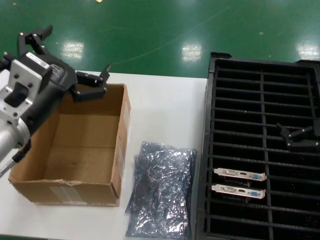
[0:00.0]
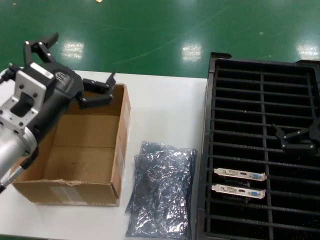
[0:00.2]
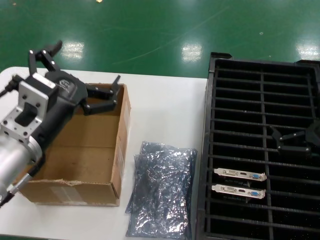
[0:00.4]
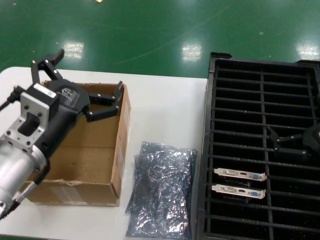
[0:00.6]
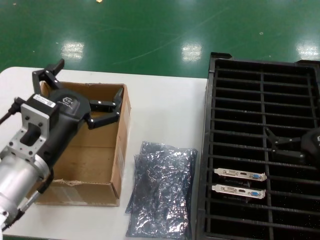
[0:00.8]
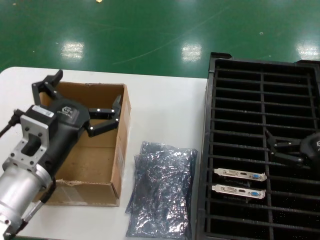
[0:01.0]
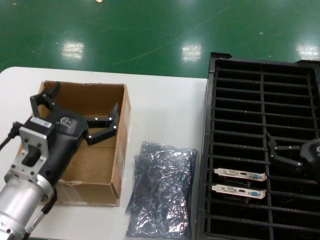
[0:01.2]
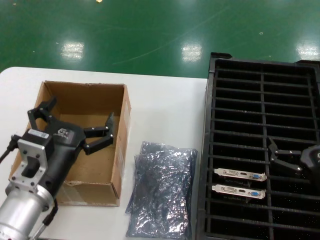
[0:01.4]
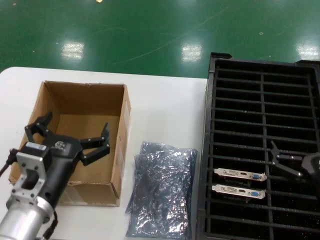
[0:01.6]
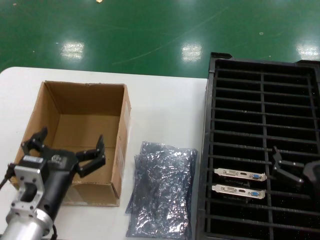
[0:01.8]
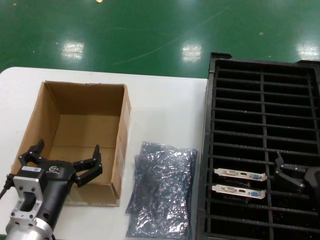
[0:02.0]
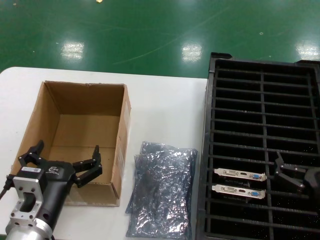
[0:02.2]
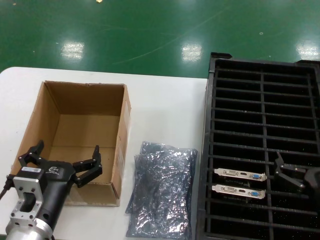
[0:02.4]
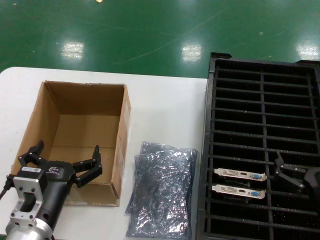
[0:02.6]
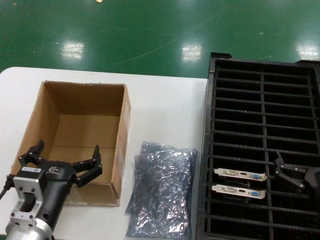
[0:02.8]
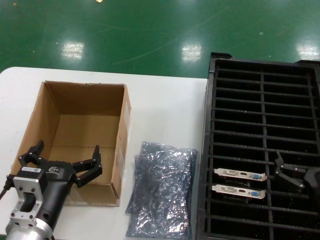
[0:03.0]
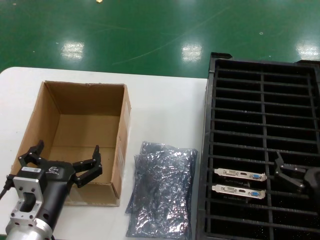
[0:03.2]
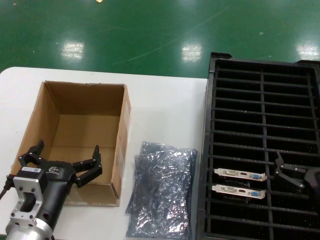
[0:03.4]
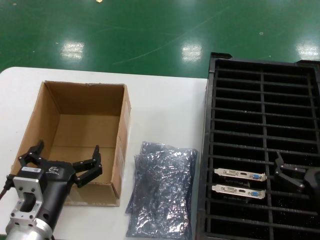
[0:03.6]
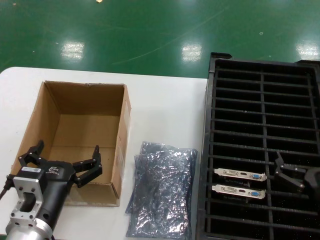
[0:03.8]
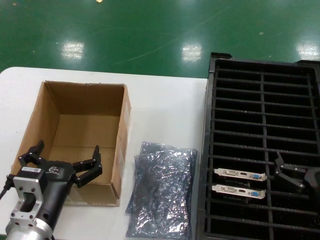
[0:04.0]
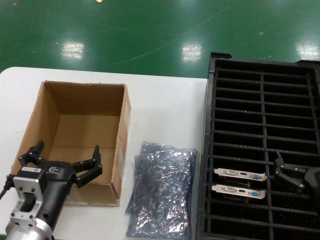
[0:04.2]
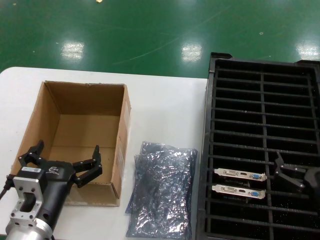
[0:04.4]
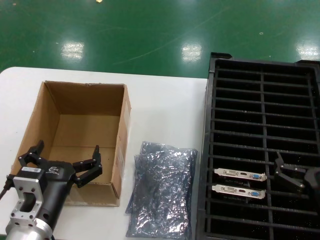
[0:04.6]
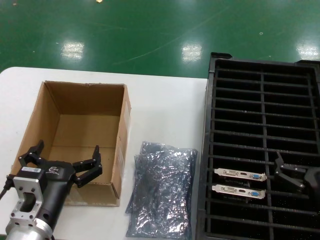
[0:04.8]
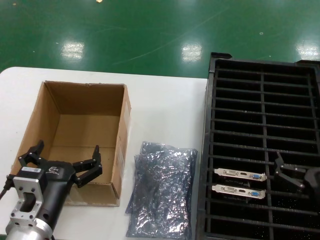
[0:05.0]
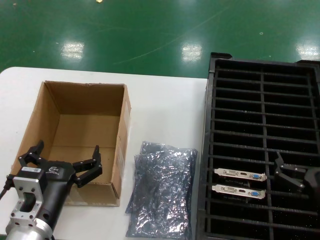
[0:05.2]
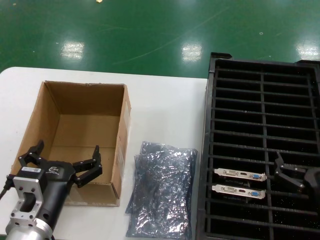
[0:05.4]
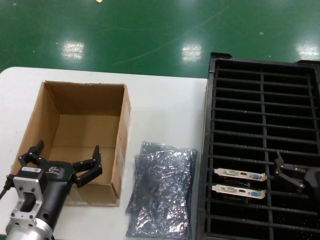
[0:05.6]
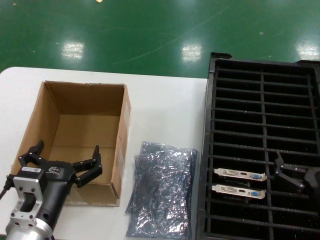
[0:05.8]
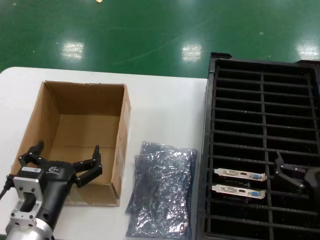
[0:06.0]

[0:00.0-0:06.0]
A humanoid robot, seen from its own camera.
Task of the whole recording: take out graphics card from box remove packaging put into black container.
0.0 to 1.6 s: The right hand travels downward, to the left and backward by approximately 15 cm. The left hand moves downward, approximately 15 cm.
1.6 to 3.0 s: The hands make only small movements.
3.0 to 6.0 s: Both hands stay put.

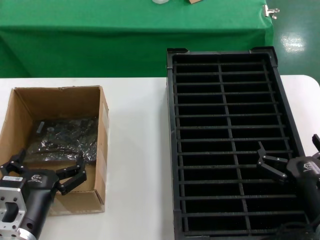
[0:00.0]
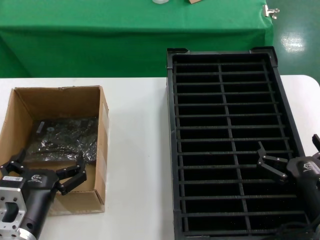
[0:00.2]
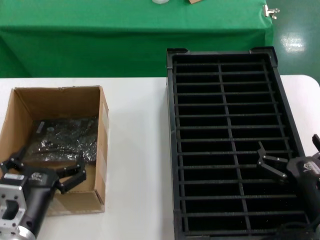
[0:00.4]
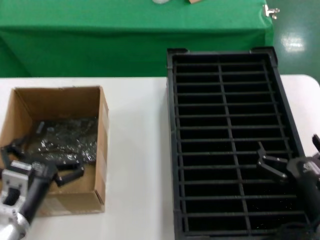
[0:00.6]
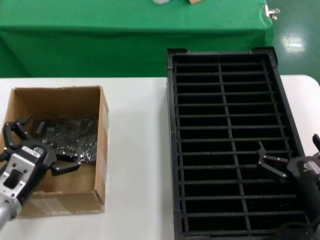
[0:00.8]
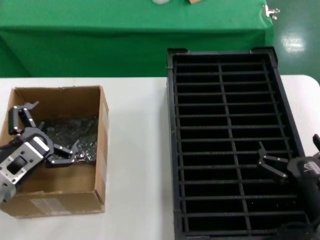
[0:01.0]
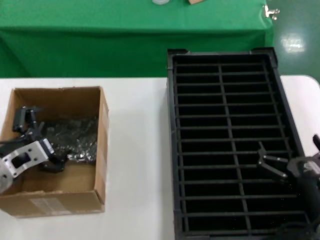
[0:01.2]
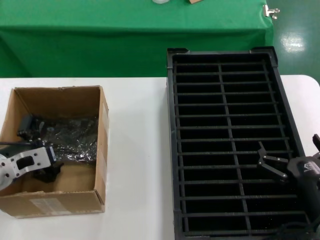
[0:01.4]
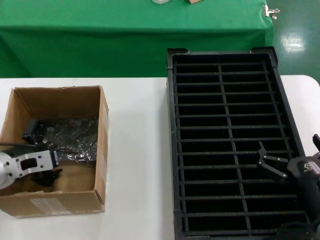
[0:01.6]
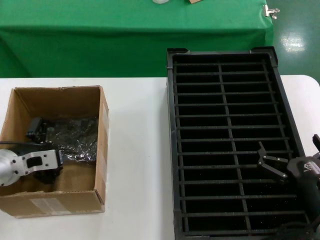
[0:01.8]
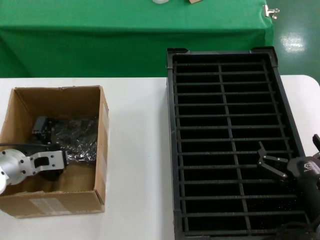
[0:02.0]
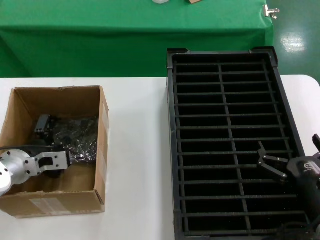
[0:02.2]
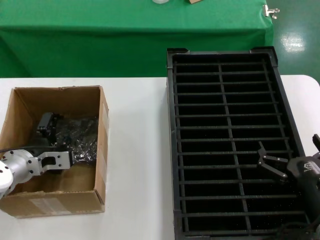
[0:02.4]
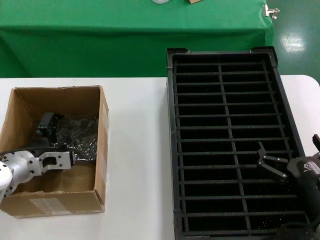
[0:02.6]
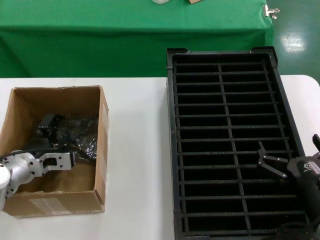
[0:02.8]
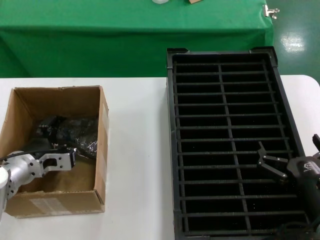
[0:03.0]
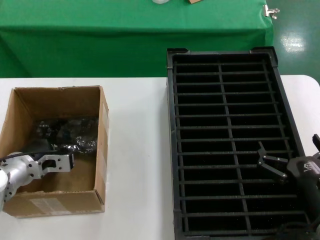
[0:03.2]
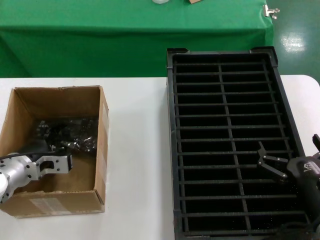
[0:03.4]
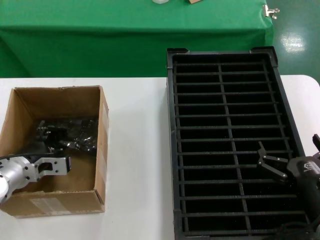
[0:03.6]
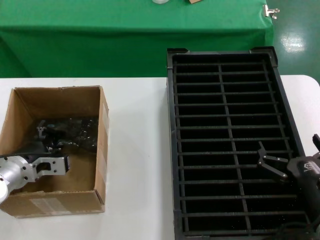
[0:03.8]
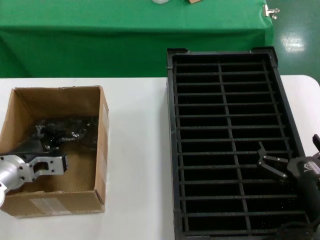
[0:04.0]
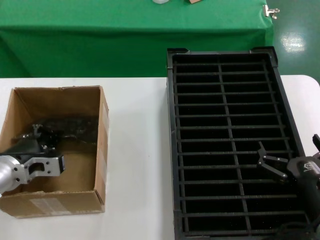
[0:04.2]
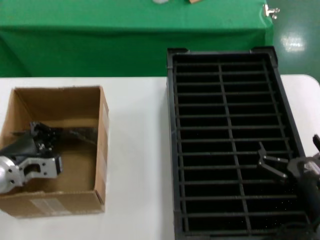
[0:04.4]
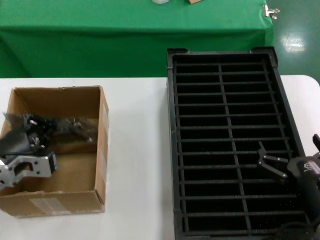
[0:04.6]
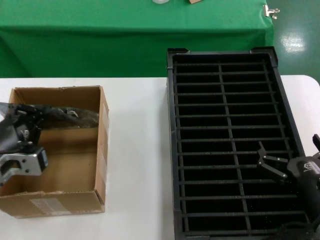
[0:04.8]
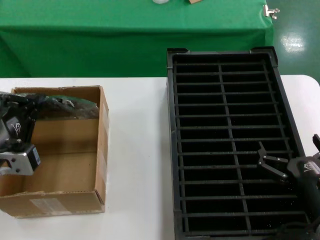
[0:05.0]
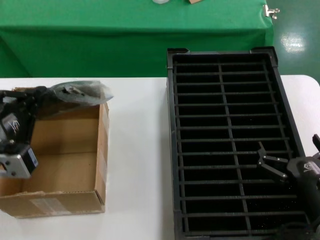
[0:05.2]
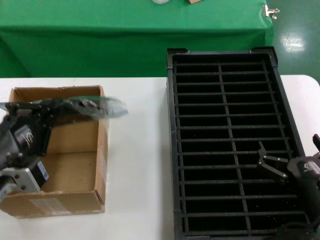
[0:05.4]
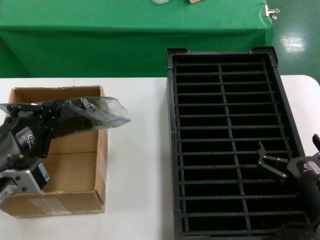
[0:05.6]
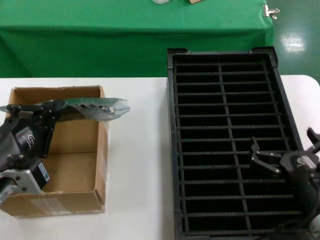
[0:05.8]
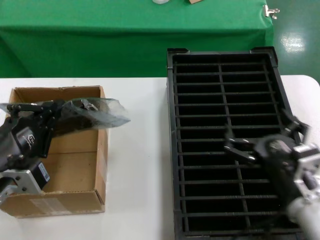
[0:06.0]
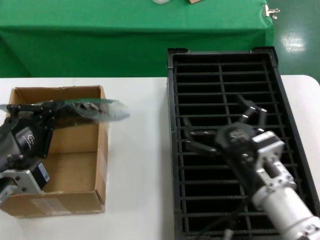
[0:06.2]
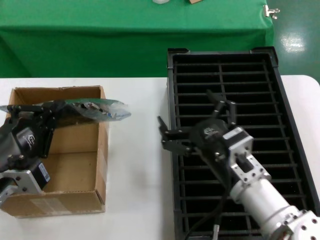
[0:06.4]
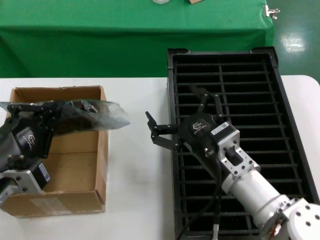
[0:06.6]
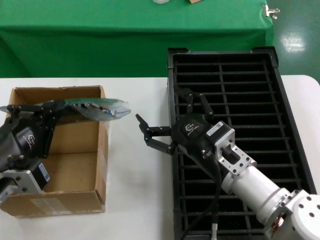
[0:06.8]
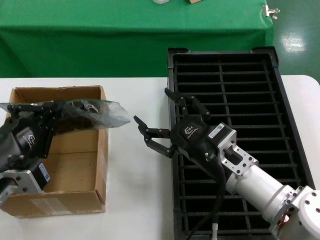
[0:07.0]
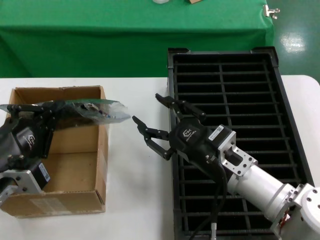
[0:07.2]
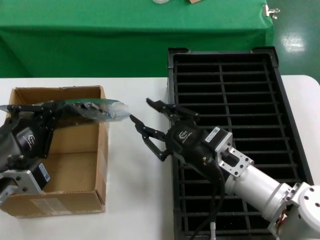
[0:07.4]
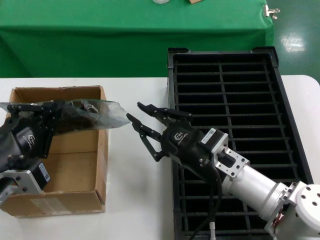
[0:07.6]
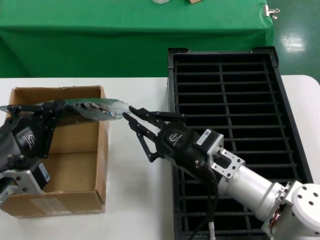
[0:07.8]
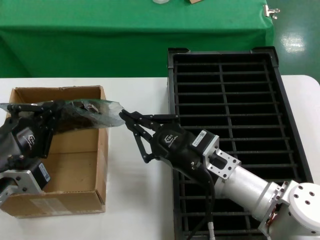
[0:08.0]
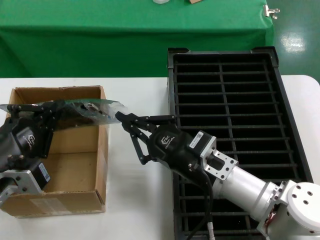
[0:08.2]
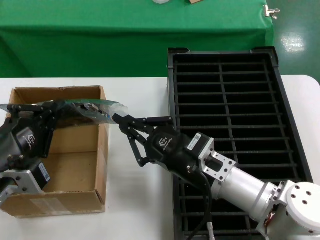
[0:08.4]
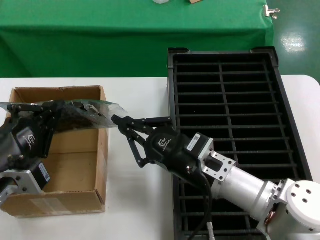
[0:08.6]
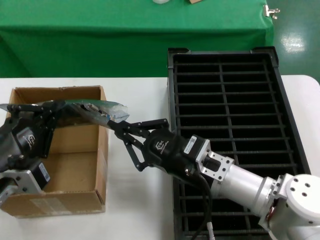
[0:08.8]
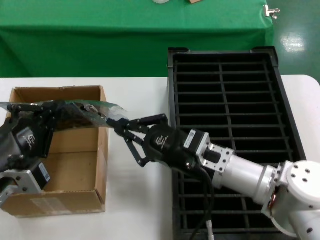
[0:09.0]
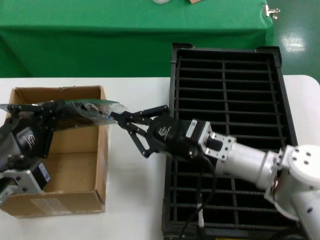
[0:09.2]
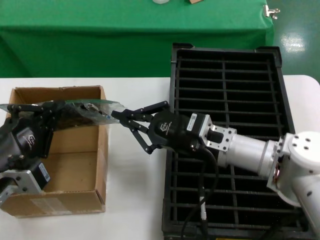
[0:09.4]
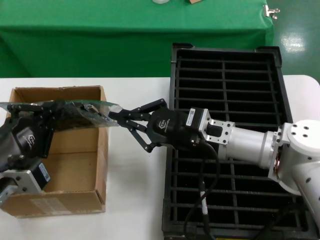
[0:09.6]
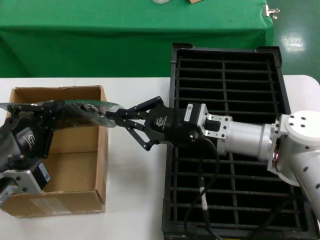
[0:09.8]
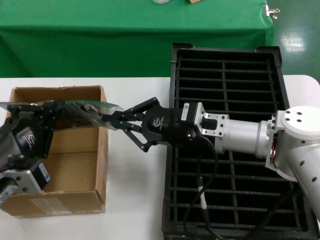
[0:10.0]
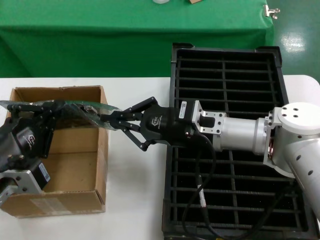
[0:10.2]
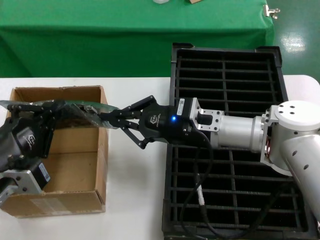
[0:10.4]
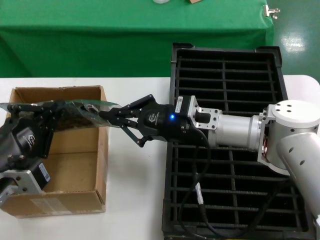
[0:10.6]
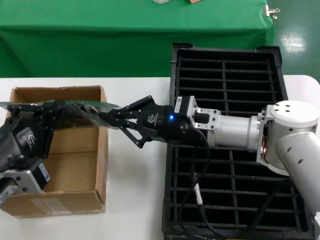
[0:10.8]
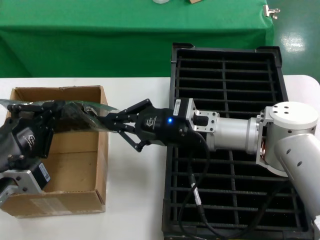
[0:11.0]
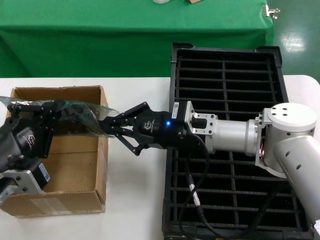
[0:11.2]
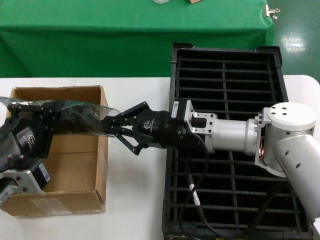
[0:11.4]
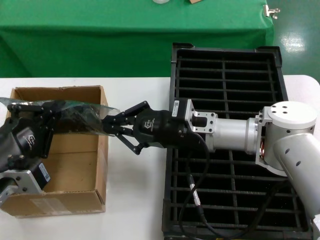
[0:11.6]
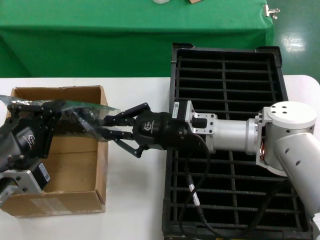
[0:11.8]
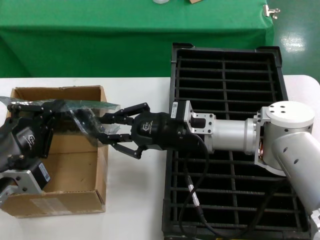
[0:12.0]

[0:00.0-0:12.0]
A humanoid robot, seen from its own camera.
Task of the whole recording: take out graphics card from box remove packaging put into black container.
Step, 0.0 to 4.2 s: Grasp the bag.
Step, 4.4 to 5.4 s: Lift the bag.
0.0 to 1.6 s: The left hand goes roughly 20 cm forward, to the left and upward.
1.6 to 3.0 s: The left hand changes place by approximately 5 cm.
3.0 to 4.4 s: The left hand shifts some 5 cm backward.
4.4 to 6.0 s: The left hand moves backward and upward, approximately 15 cm.
6.0 to 7.6 s: The right hand travels forward and to the left by approximately 10 cm.
7.6 to 9.0 s: The hands move only a little.
9.0 to 10.4 s: The right hand moves forward, approximately 10 cm.
10.4 to 12.0 s: The hands move only a little.

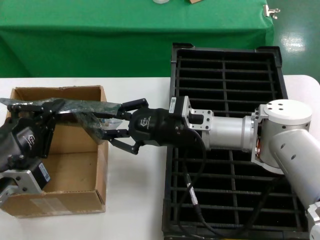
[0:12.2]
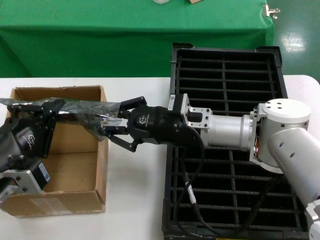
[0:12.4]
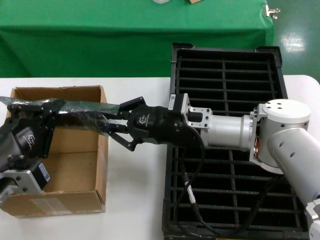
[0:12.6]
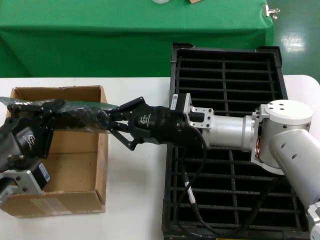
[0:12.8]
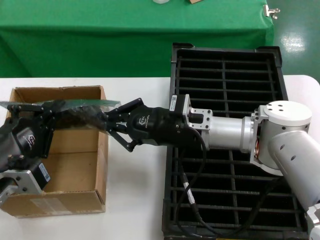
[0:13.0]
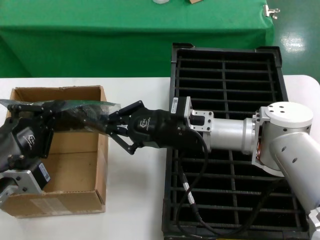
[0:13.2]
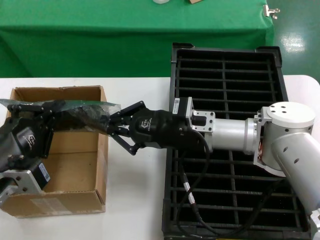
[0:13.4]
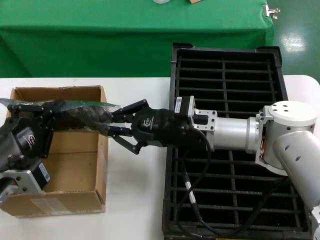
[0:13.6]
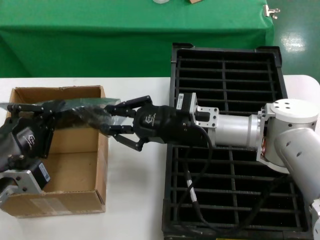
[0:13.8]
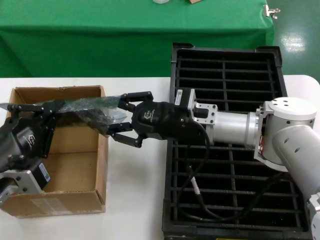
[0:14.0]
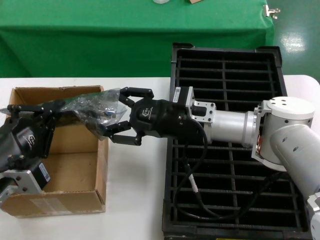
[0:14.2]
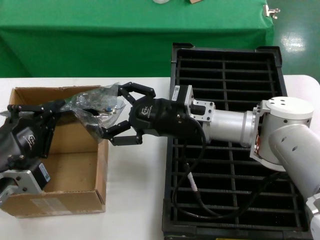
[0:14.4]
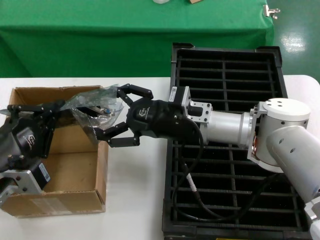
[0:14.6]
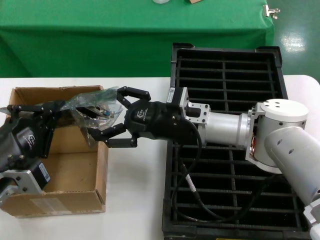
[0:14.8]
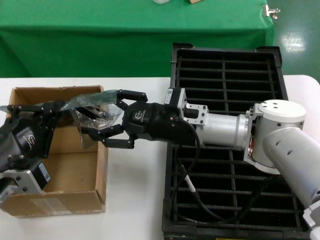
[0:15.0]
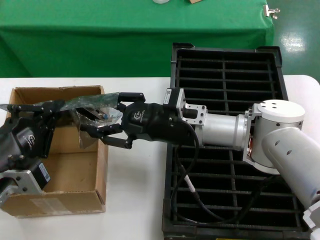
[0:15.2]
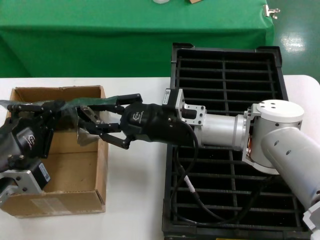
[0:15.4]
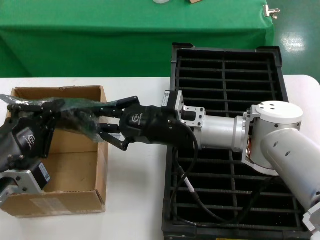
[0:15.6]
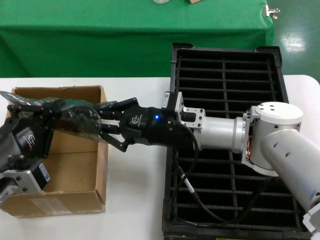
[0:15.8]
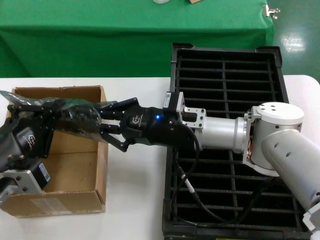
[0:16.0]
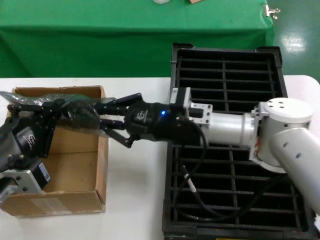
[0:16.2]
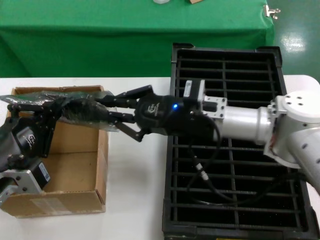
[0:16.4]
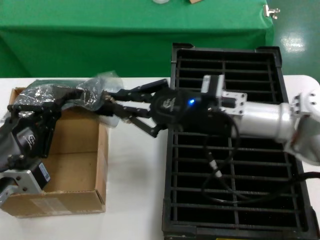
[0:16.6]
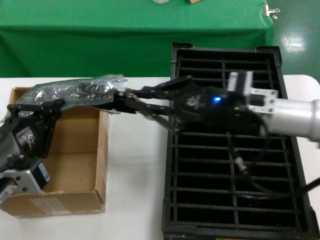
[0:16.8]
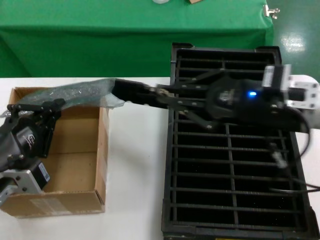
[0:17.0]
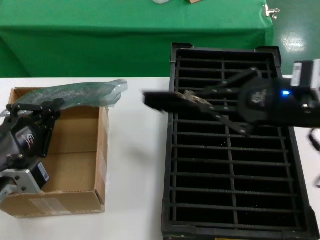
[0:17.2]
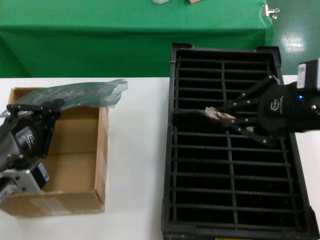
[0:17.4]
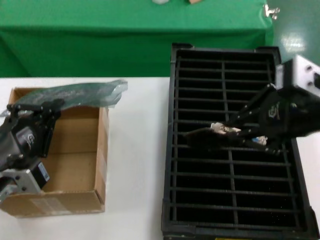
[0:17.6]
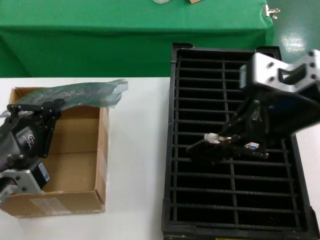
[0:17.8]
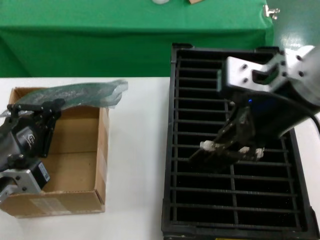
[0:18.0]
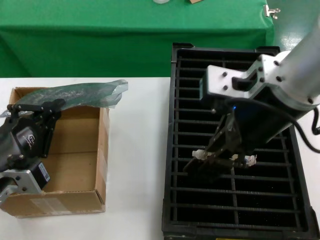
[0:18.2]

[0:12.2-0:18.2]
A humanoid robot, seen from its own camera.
Task of the whole recording: take out graphics card from box remove packaging put into black container.
Step, 12.2 to 17.0 s: Take out the hard disk of the bag.
12.2 to 13.8 s: The two hands keep their place.
13.8 to 15.2 s: There are only small adjustments of the hands.
15.2 to 16.6 s: The right hand shifts approximately 5 cm to the right.
16.6 to 18.2 s: The right hand heads upward and backward, covering some 25 cm.
